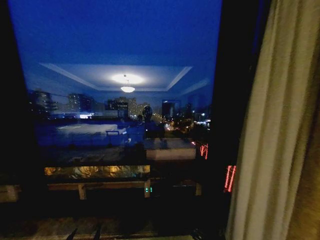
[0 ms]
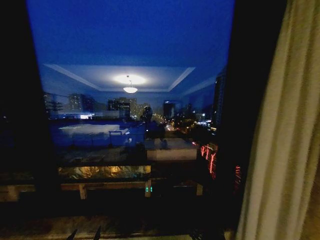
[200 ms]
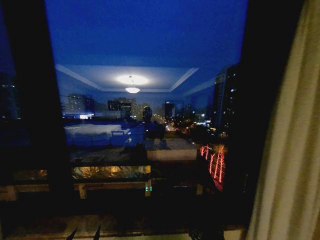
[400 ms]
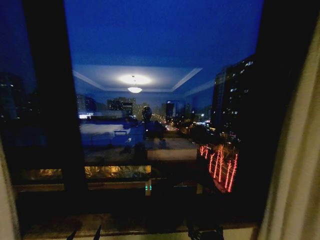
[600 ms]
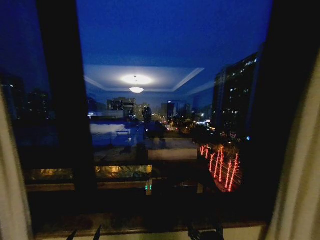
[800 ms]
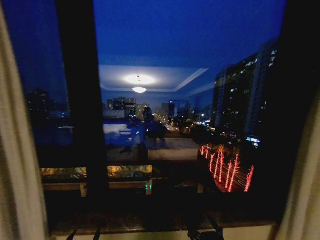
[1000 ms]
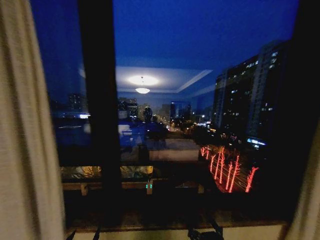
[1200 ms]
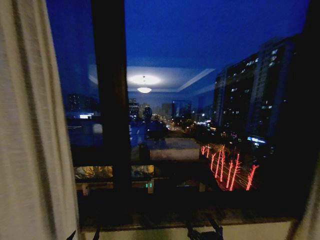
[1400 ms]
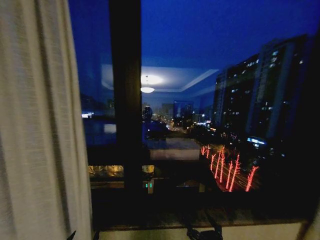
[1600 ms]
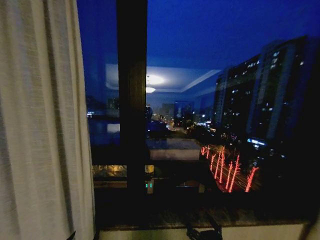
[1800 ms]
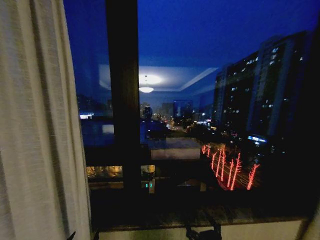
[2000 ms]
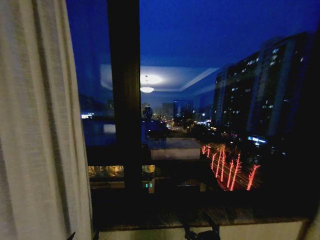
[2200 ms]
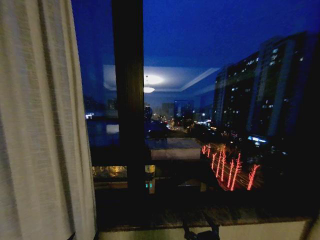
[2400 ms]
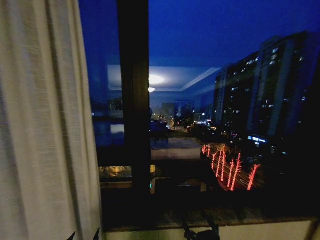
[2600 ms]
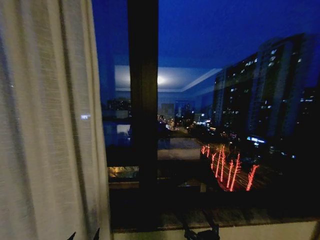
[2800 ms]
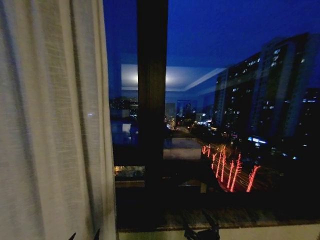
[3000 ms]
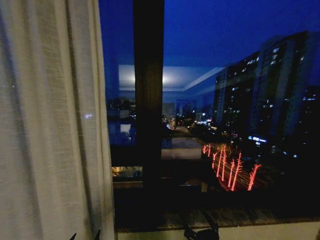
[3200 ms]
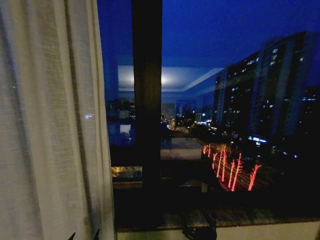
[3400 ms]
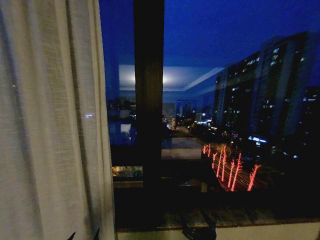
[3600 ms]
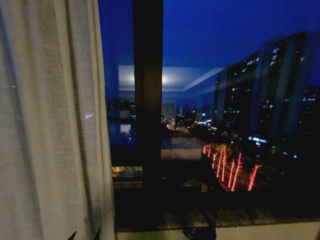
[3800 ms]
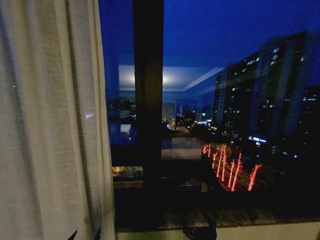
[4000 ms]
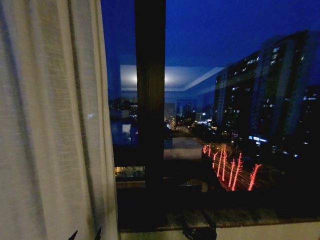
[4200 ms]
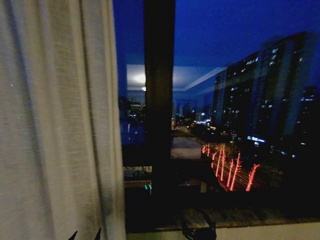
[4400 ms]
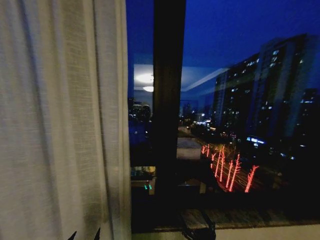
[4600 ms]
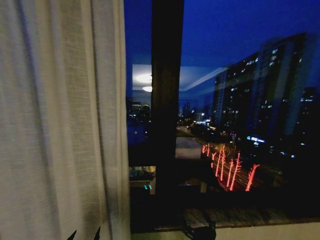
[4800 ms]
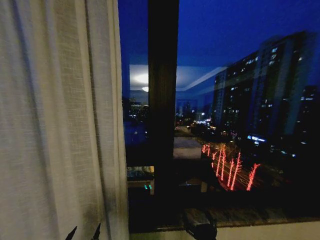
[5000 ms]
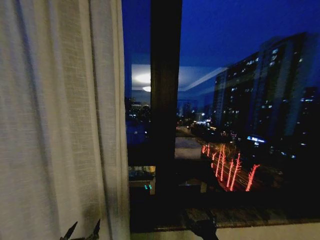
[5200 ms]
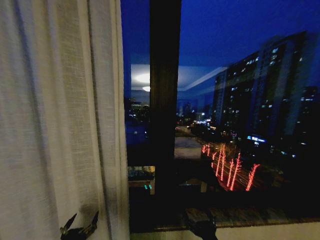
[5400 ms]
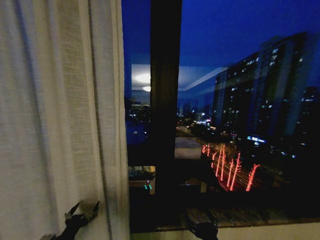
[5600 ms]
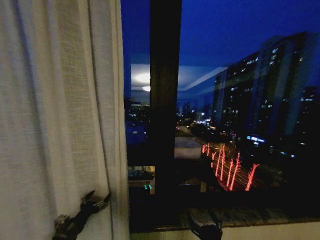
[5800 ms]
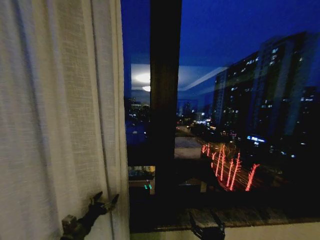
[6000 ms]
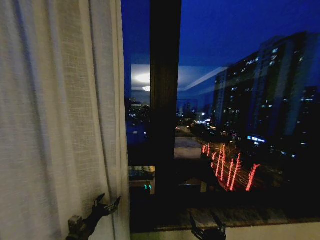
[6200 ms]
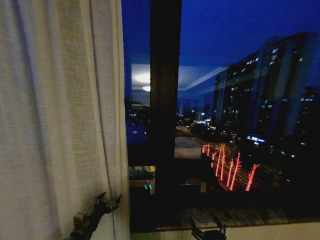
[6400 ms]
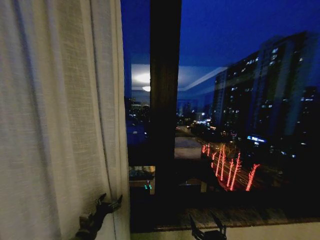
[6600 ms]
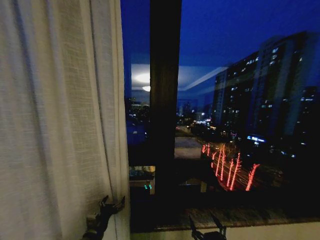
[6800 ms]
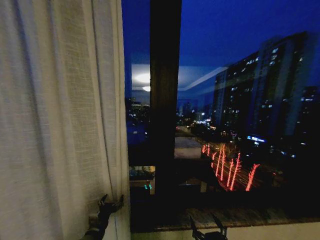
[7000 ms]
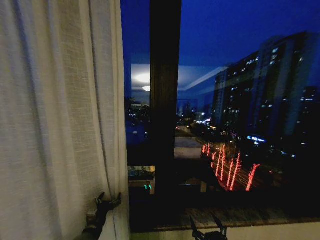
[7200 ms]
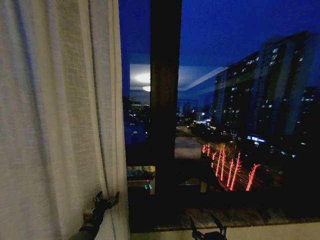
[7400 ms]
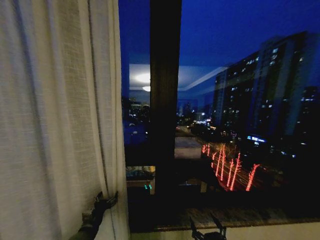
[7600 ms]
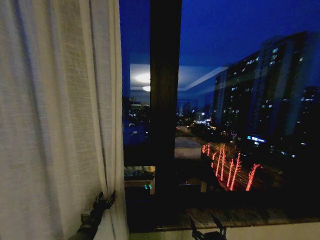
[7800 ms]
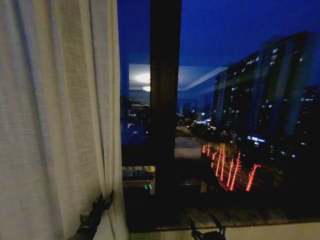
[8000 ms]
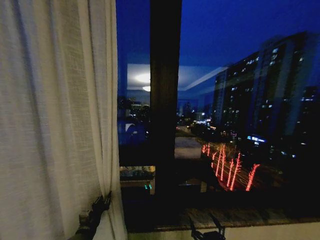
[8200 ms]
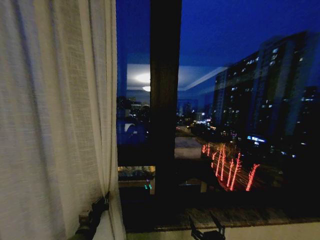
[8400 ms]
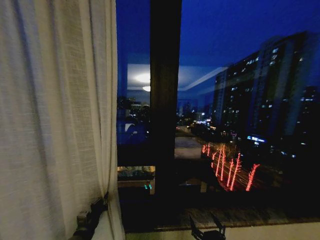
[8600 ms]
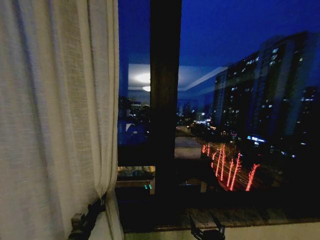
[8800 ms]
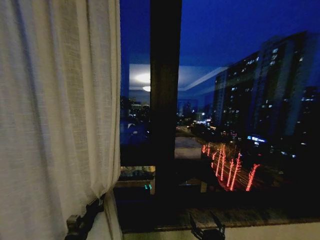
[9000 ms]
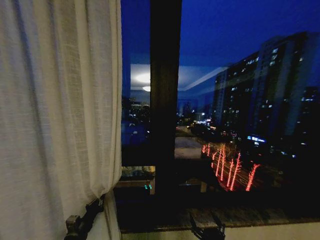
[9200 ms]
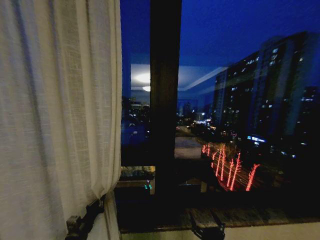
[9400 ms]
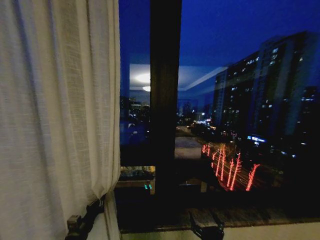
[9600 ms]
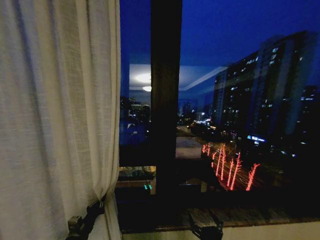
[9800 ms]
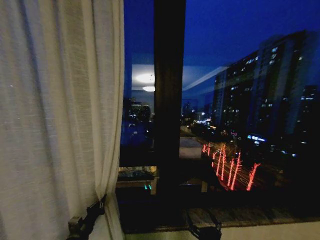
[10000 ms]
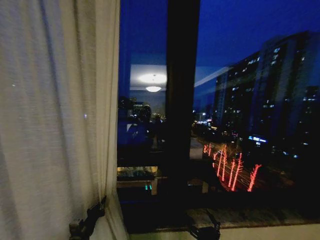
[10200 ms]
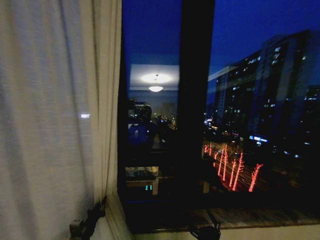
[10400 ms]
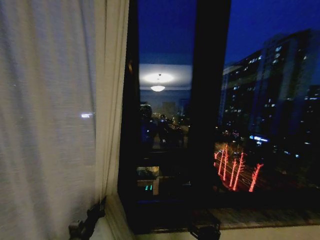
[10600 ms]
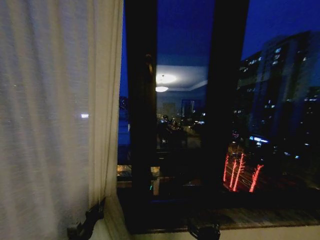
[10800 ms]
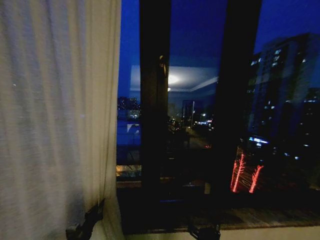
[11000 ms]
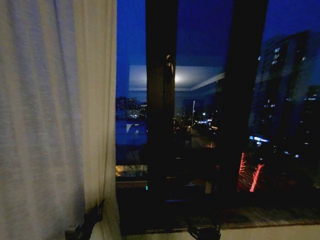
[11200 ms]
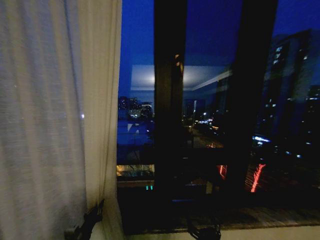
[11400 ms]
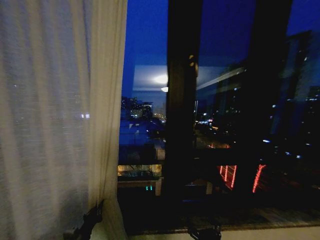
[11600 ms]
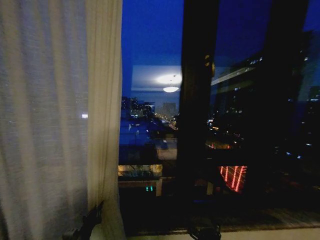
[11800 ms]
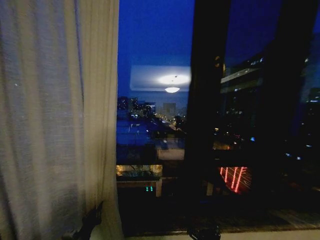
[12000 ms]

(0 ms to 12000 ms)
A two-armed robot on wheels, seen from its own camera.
Task of the whole recording: Open the curtains by pulling them apart, changing their state from closed to fully open.
3000 ms - 4400 ms: Both grippers stay about where they are.
4400 ms - 6000 ms: The left gripper is displaced forward by some 15 cm.
6000 ms - 7600 ms: The left gripper is displaced forward by some 5 cm.
7600 ms - 9000 ms: The left gripper closes its fingers.
9000 ms - 10400 ms: The grippers move only a little.

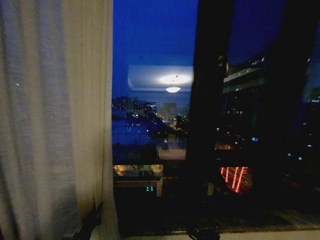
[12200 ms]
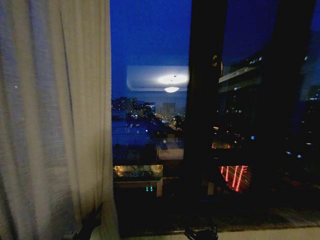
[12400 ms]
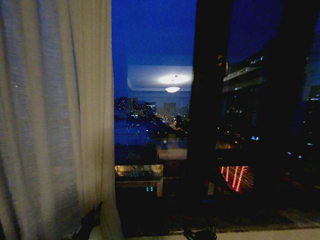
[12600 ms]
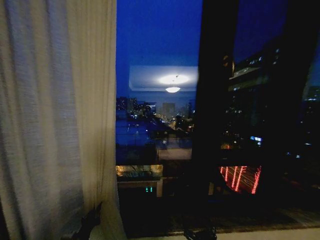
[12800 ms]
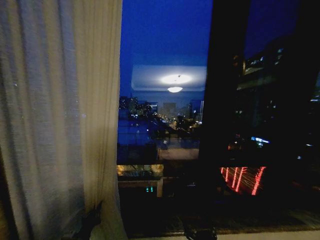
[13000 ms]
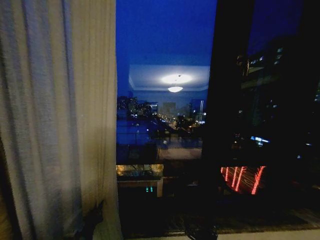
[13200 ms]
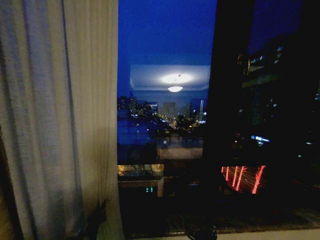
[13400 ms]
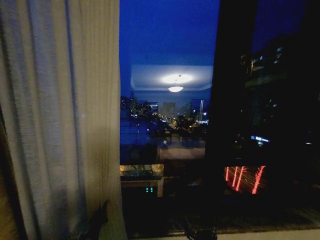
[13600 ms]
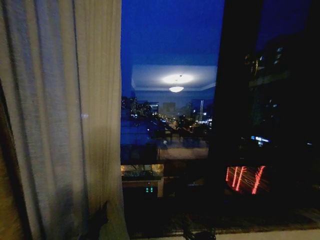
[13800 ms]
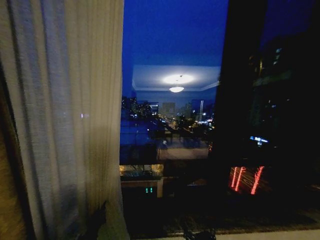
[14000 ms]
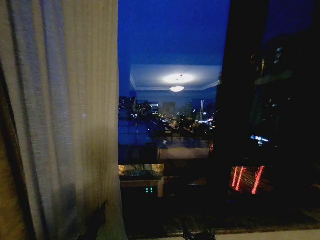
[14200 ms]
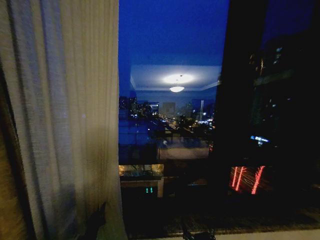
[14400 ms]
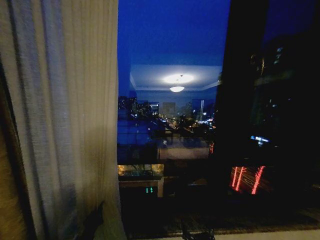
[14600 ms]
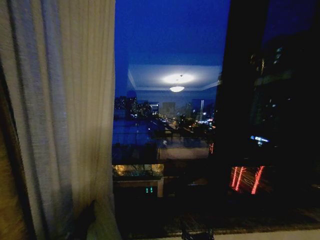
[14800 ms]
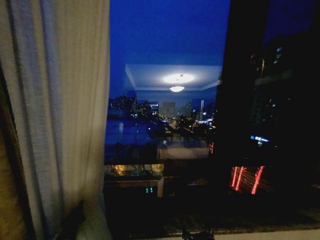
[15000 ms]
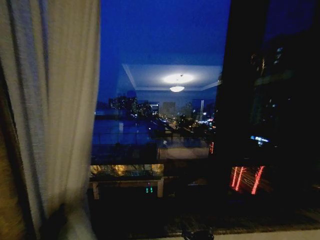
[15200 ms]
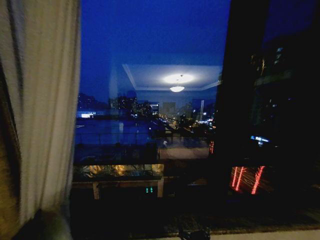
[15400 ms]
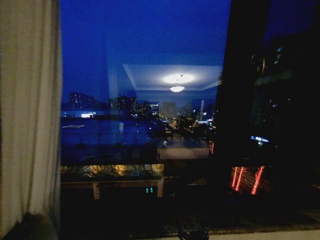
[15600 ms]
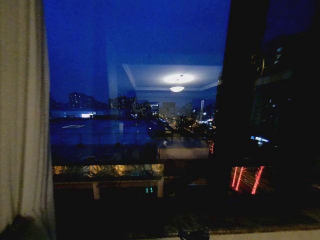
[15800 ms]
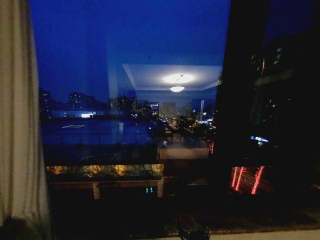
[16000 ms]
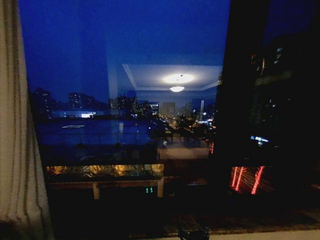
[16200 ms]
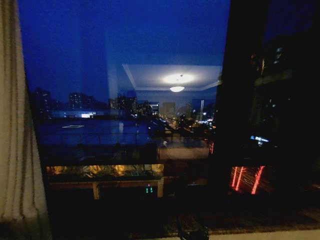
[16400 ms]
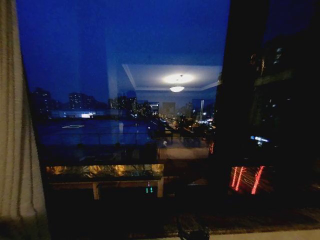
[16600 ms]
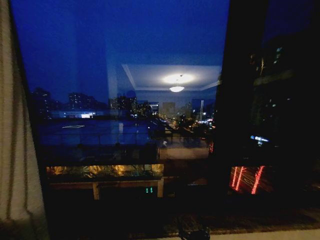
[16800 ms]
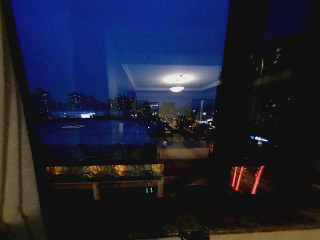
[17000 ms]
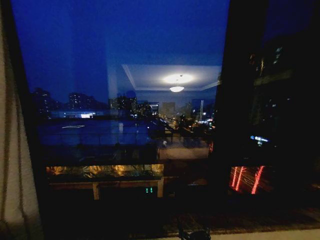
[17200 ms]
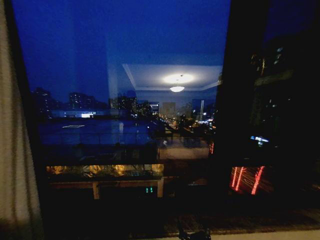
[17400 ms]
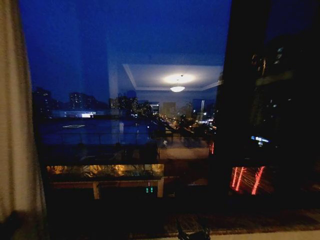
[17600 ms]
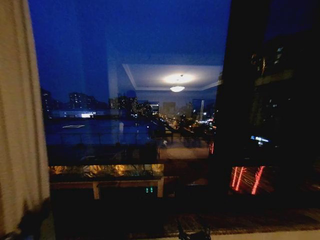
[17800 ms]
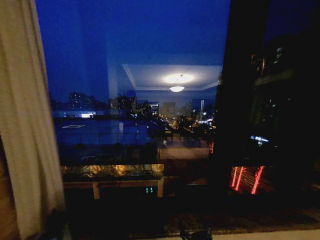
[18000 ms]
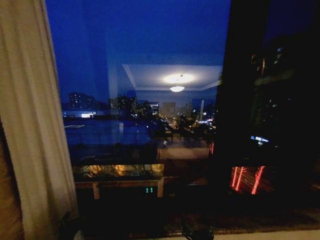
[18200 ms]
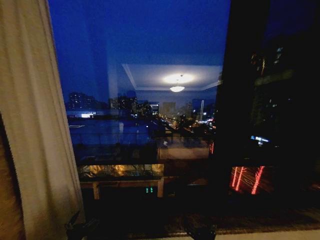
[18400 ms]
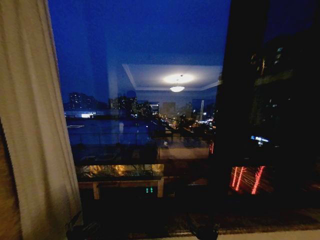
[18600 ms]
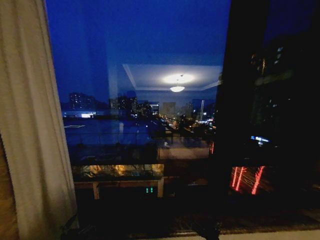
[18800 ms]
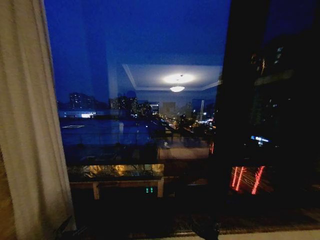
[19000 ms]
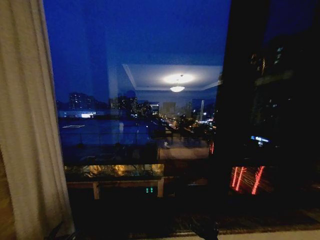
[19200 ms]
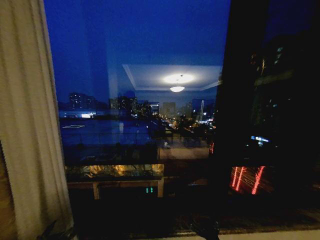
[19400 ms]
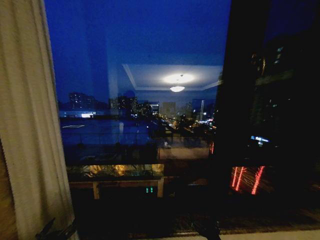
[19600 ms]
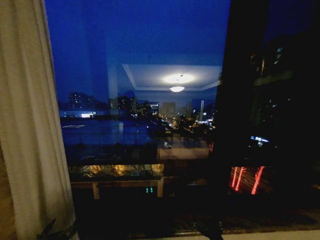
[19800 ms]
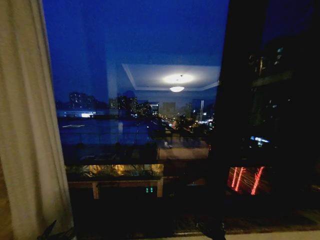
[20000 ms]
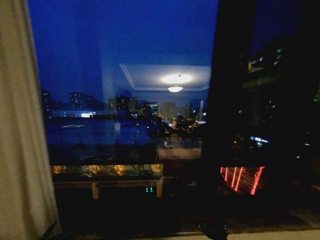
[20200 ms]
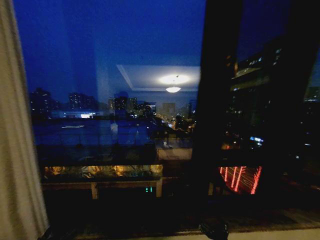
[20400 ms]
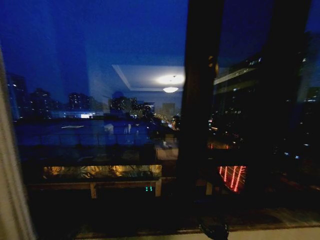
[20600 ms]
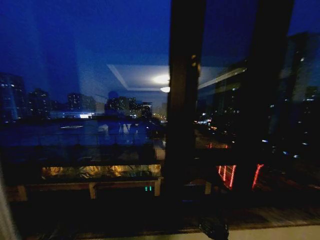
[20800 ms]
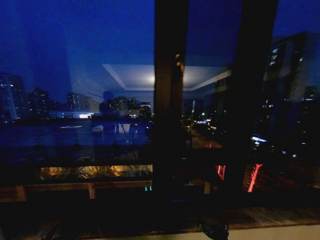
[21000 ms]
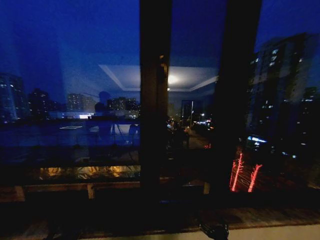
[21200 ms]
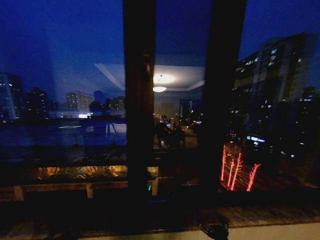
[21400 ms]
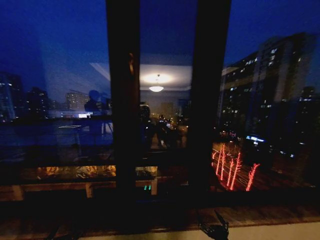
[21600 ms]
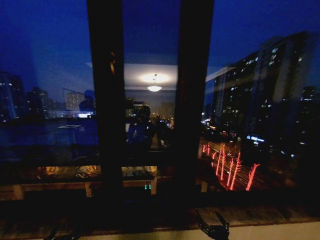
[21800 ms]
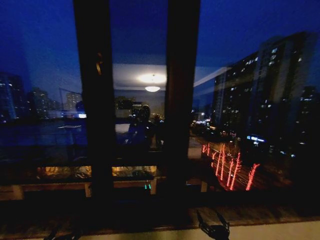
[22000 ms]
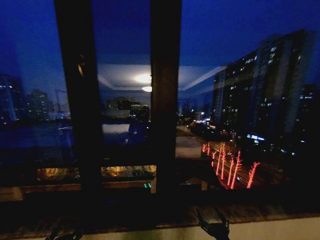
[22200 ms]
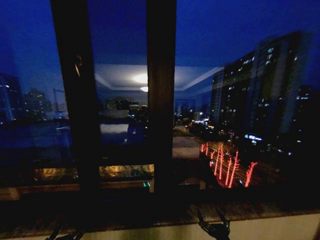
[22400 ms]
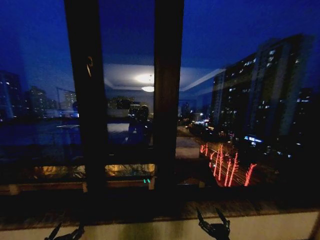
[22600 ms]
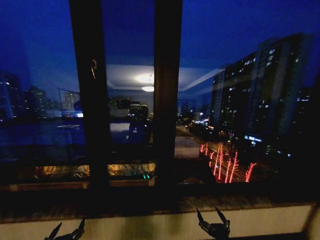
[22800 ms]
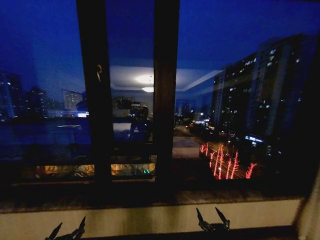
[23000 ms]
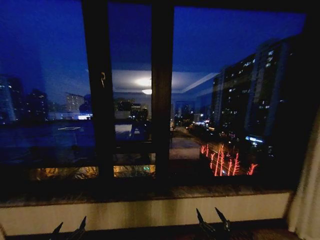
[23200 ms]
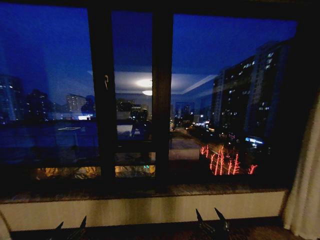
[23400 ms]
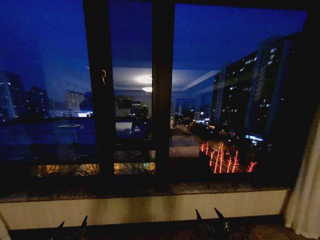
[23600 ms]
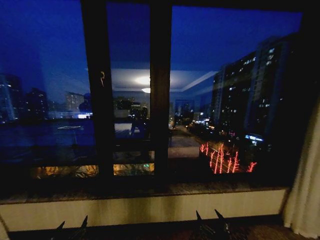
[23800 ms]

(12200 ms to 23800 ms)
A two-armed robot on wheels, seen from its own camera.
Task of the whole recording: Open the curtains by pulling them apart, changing their state from closed to fully open.
12200 ms - 13600 ms: The grippers make only small movements.
13600 ms - 15000 ms: The left gripper goes roughly 5 cm to the left.
15000 ms - 16600 ms: The left gripper shifts some 20 cm to the left.
16600 ms - 18000 ms: The left gripper moves to the right, approximately 20 cm, and opens its fingers.
18000 ms - 19400 ms: The left gripper goes some 10 cm backward.
